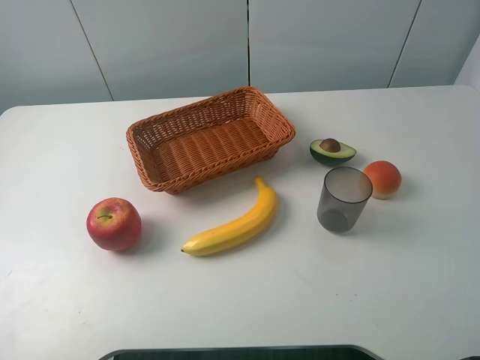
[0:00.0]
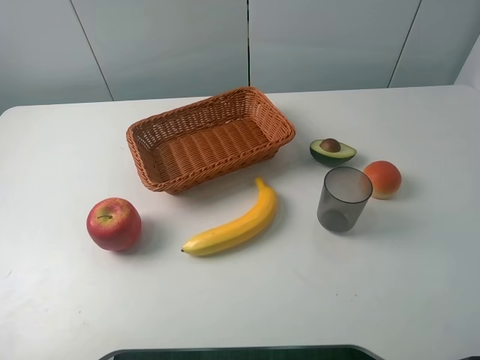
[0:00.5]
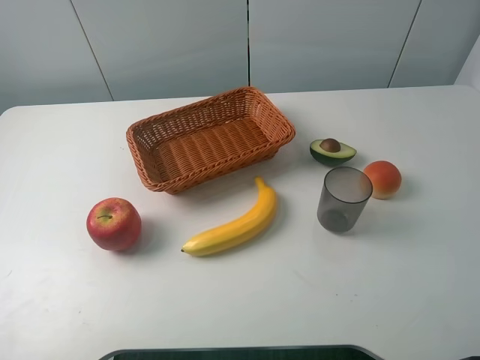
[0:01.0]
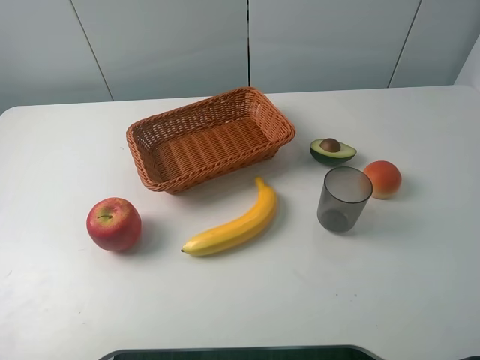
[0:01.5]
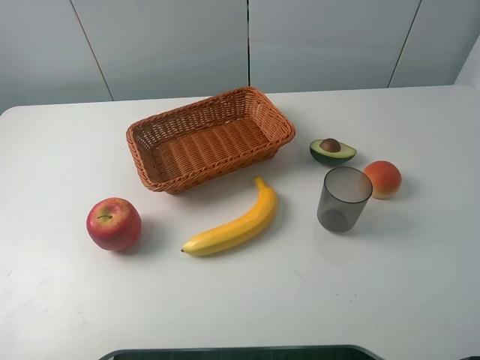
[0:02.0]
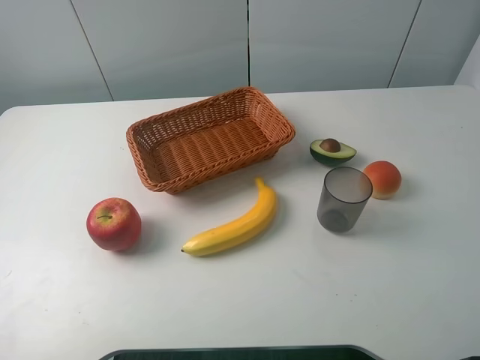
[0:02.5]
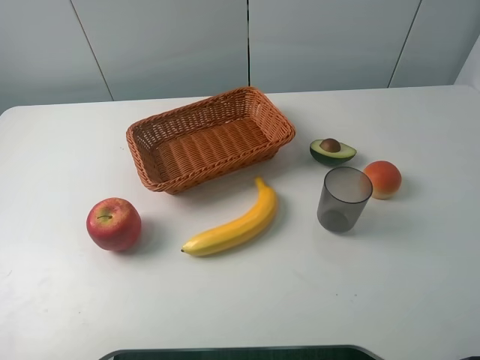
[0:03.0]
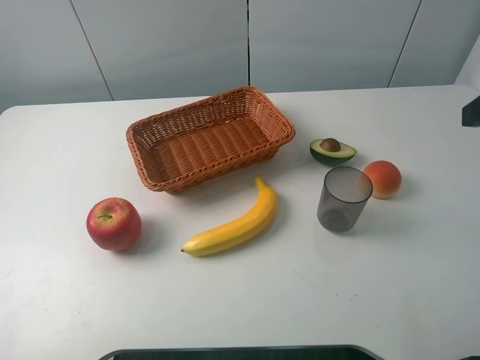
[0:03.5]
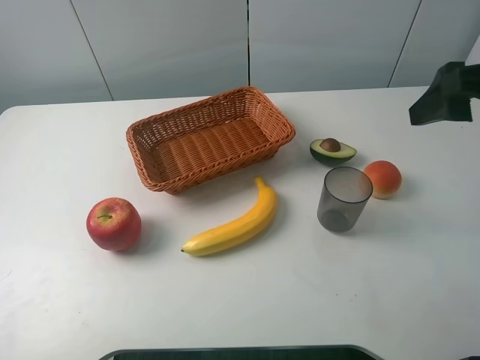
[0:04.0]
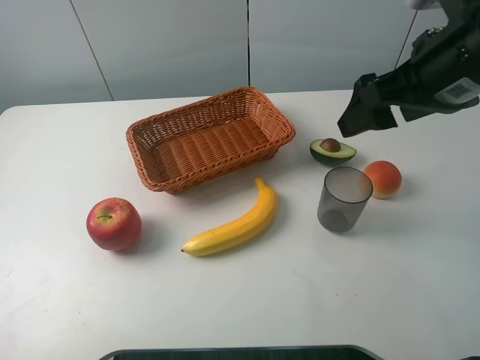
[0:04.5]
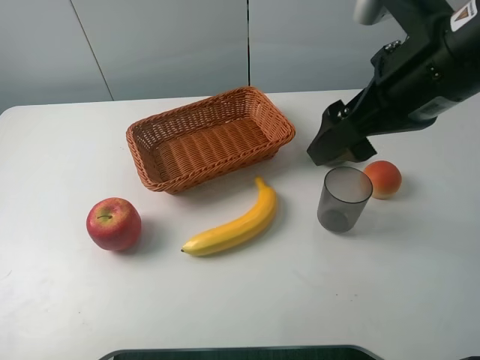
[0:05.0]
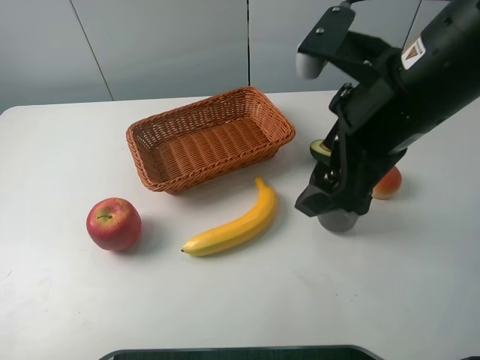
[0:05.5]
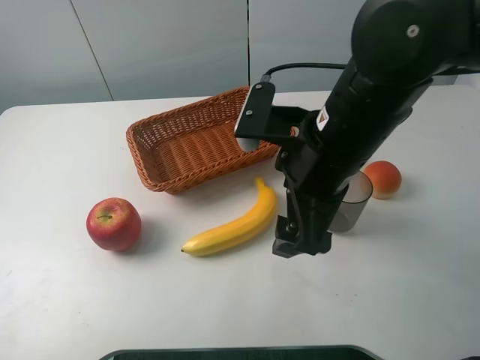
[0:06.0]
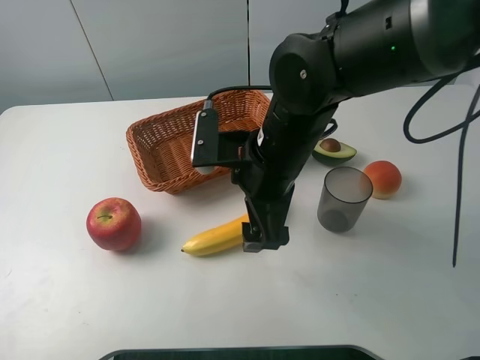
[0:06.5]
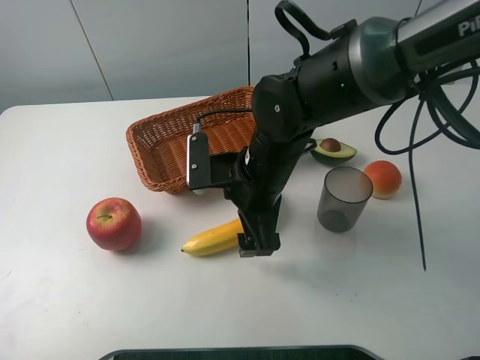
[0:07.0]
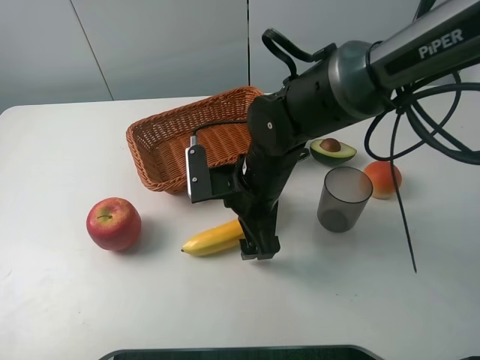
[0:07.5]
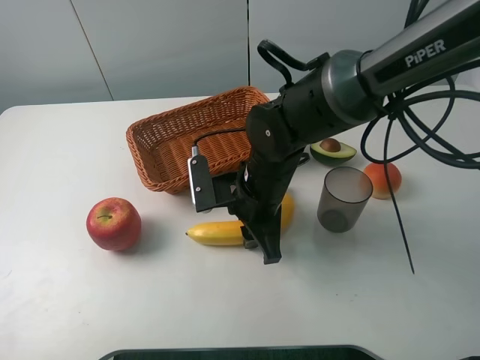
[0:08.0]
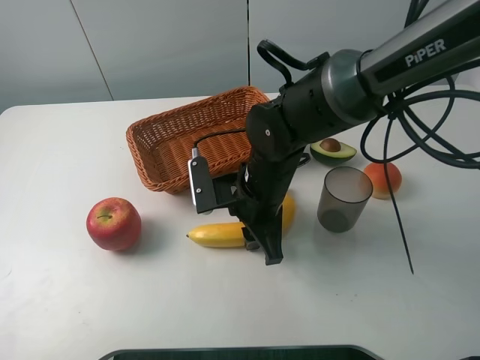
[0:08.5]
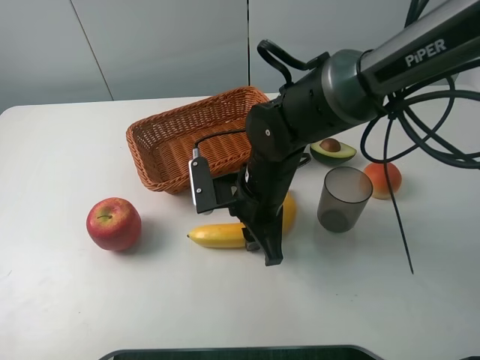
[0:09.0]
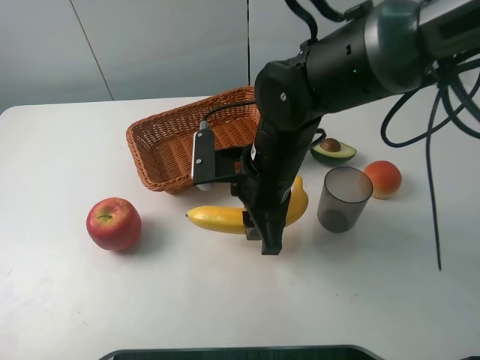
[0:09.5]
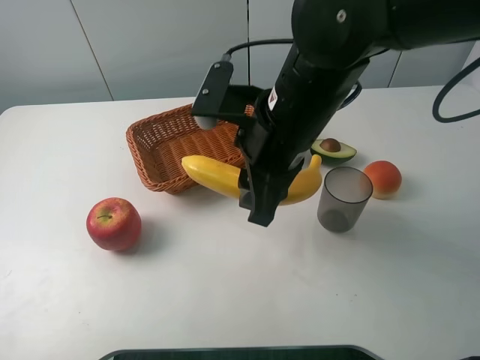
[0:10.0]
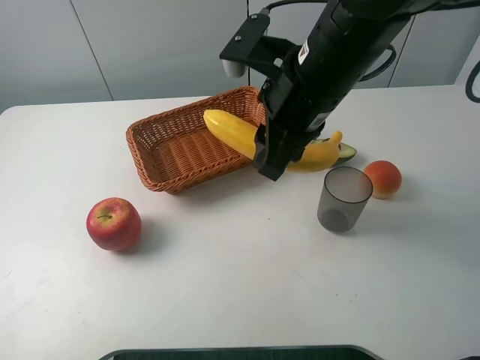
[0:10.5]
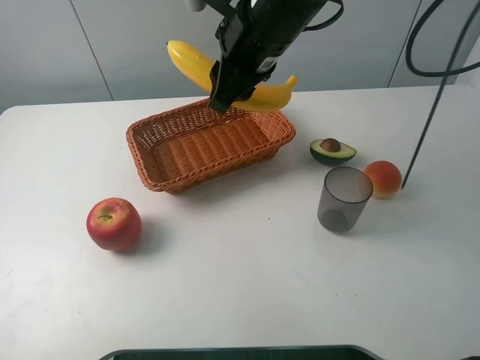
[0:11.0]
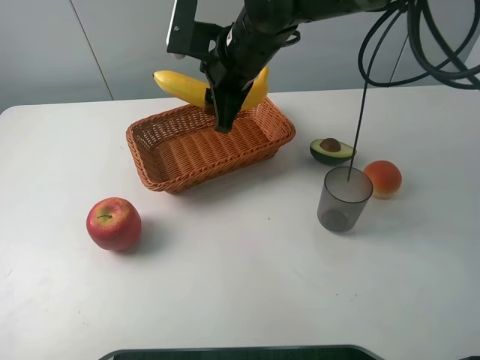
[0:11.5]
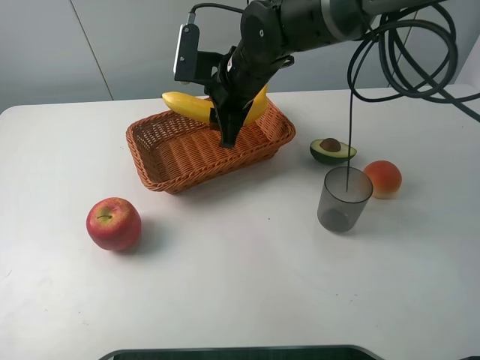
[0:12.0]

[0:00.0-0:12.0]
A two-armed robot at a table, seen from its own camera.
Task of the whole recording: randomly pick up an item from the table and put it in the basket.
Step, 0:00.0 to 0:08.0: Grasp the banana with the right gripper.
0:02.0 to 0:04.0: The right gripper travels forward by about 20 cm.
0:04.0 to 0:06.0: The right gripper travels to the left and downward by roughly 20 cm.
0:06.0 to 0:08.0: The right gripper goes approximately 10 cm downward and to the left, and closes.
0:08.0 to 0:10.0: The right gripper shifts approximately 15 cm upward.
0:10.0 to 0:12.0: The right gripper moves forward, some 15 cm.

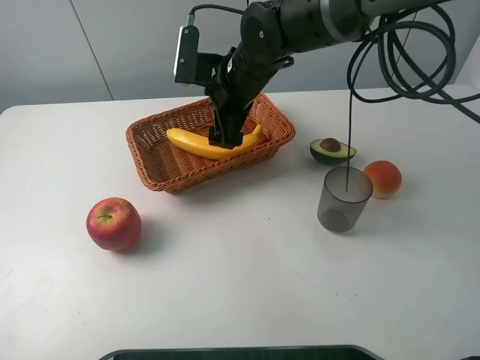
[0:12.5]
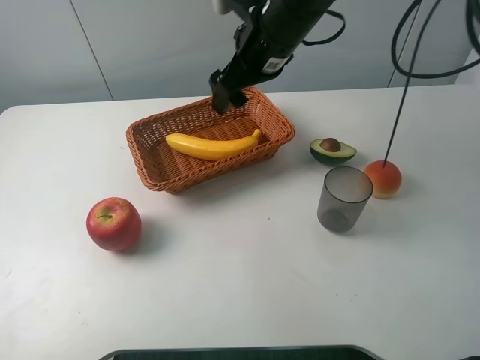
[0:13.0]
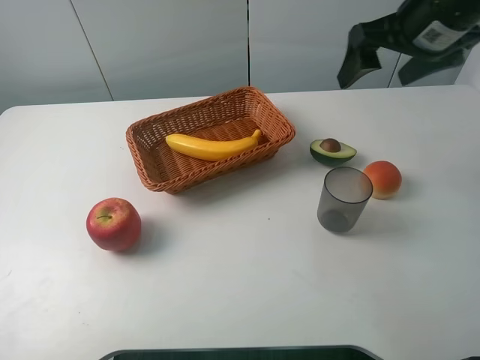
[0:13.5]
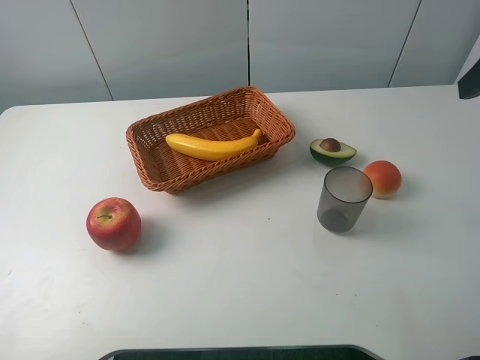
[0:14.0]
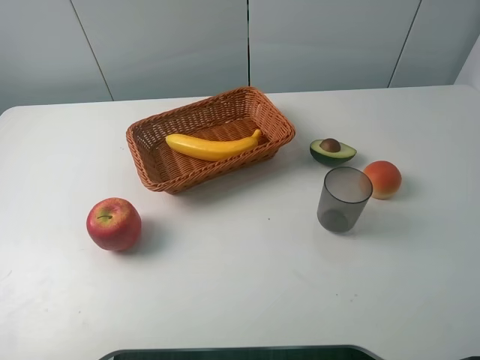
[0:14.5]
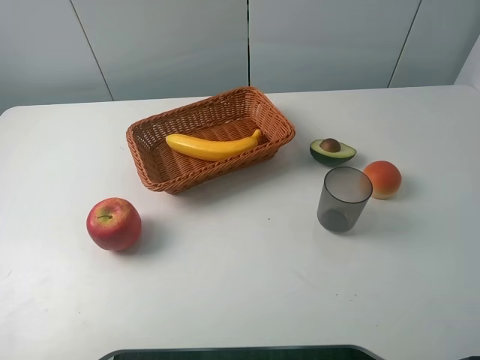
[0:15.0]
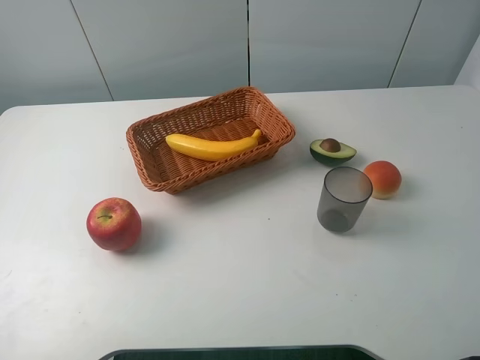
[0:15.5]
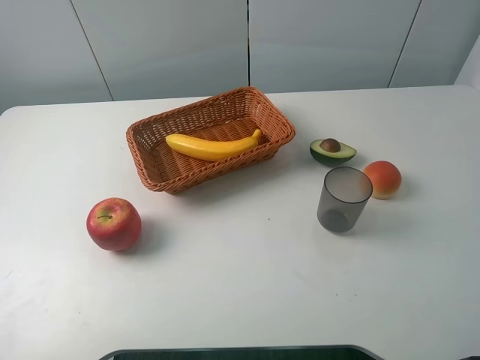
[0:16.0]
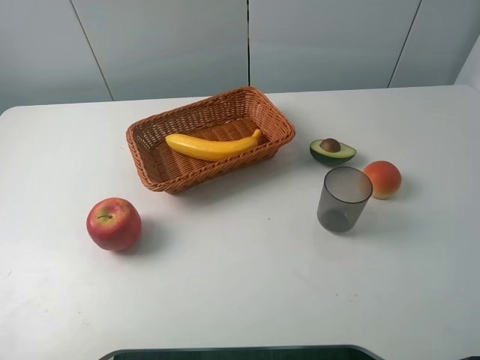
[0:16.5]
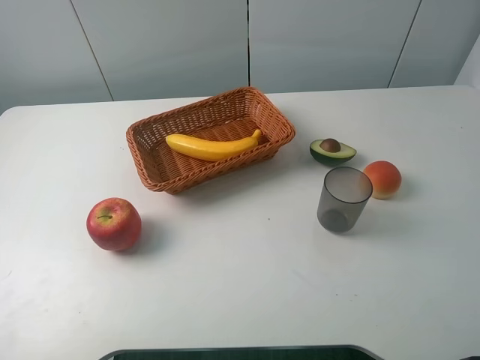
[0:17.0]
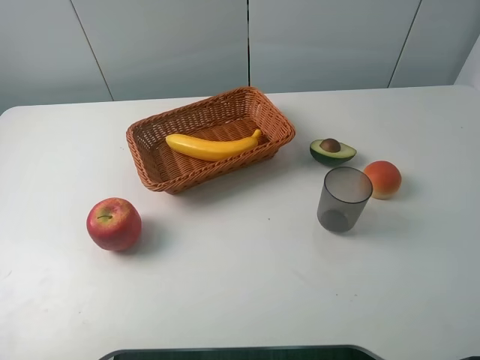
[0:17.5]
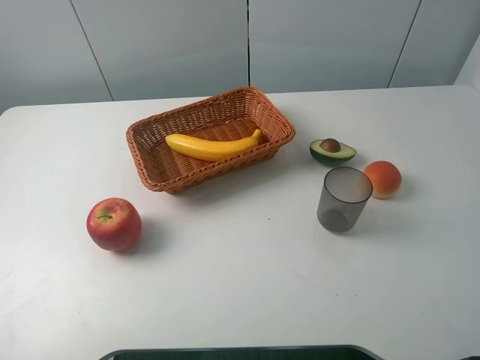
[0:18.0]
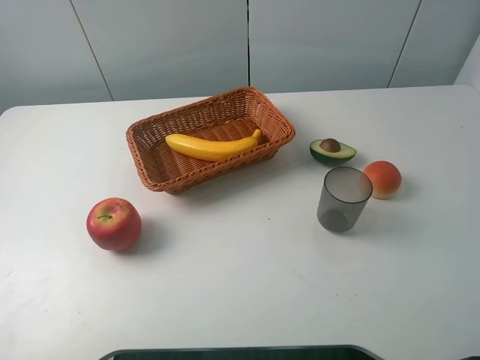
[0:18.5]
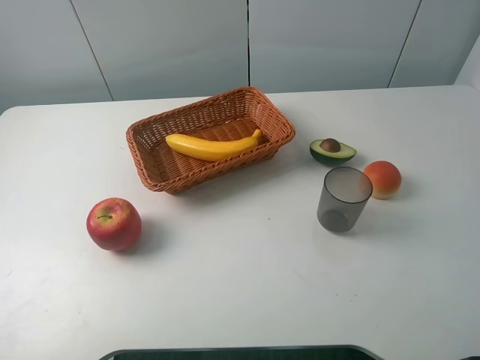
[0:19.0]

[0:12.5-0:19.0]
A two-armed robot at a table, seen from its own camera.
Task of the whole recording: randomly pick up an item from the table and put it in the basket.
0:12.5 to 0:14.5: The right gripper travels backward, to the right and upward by approximately 40 cm.
0:17.0 to 0:19.0: Both grippers stay put.

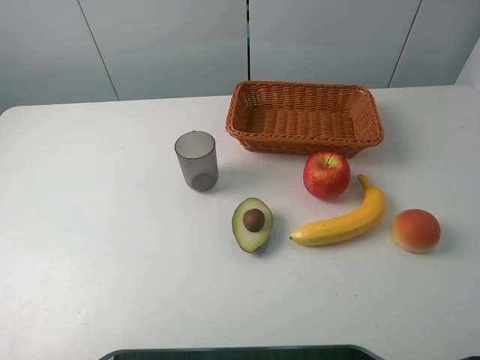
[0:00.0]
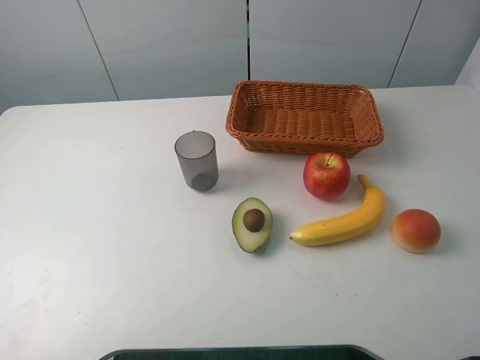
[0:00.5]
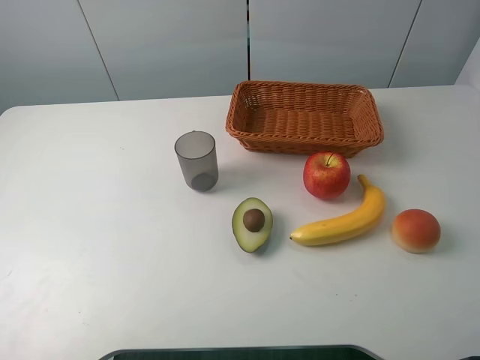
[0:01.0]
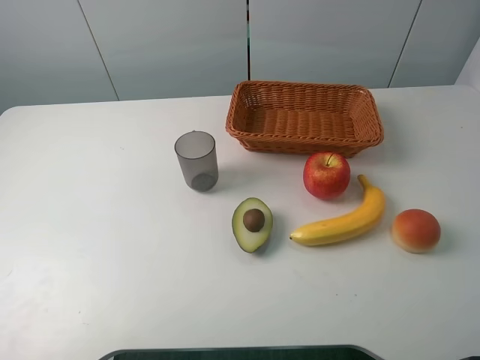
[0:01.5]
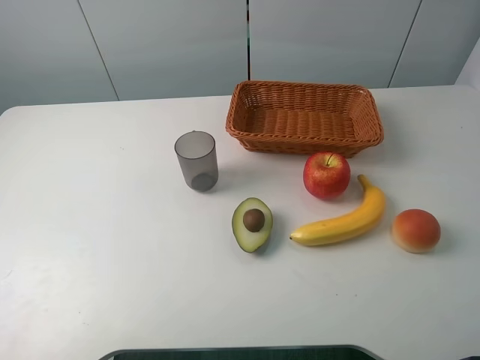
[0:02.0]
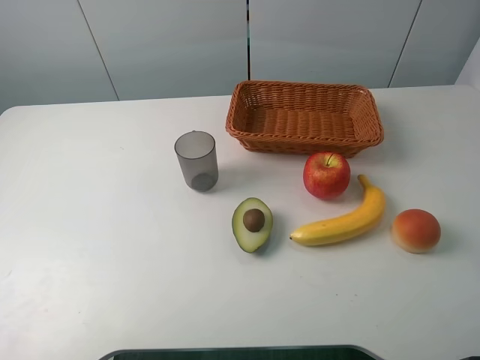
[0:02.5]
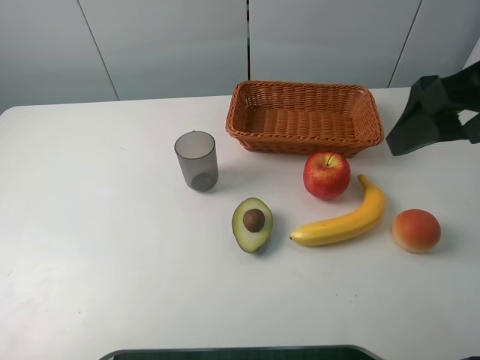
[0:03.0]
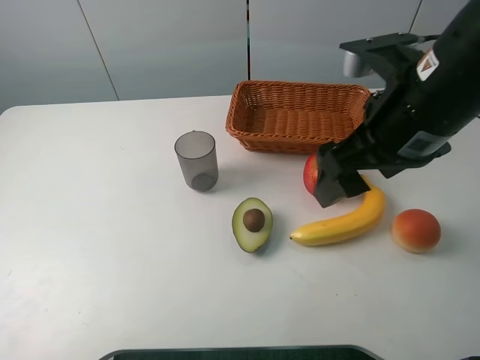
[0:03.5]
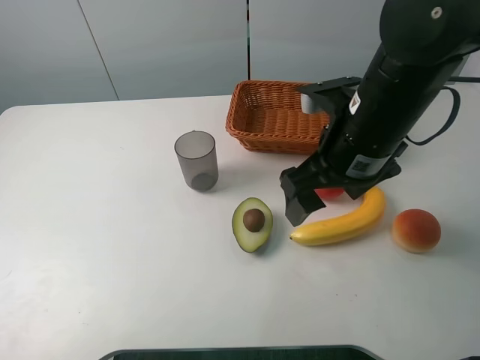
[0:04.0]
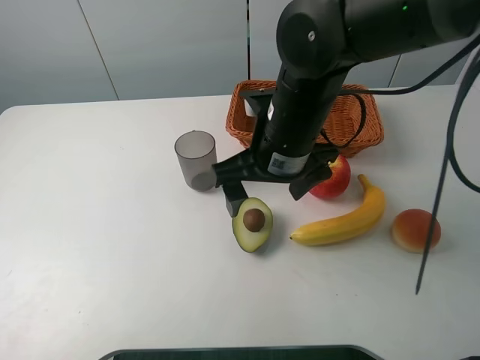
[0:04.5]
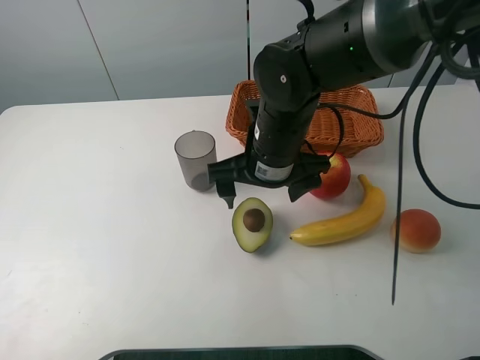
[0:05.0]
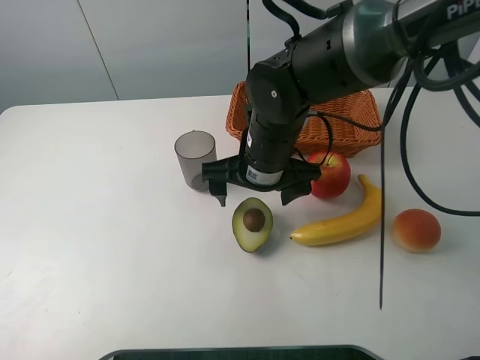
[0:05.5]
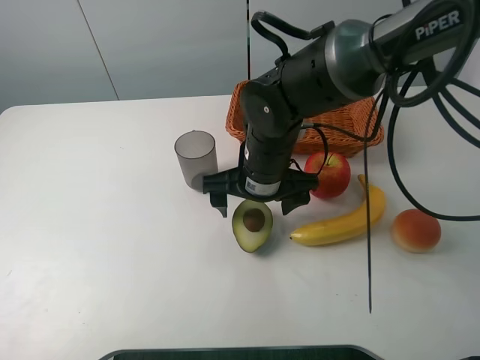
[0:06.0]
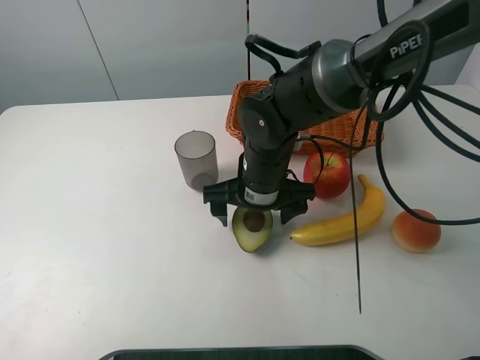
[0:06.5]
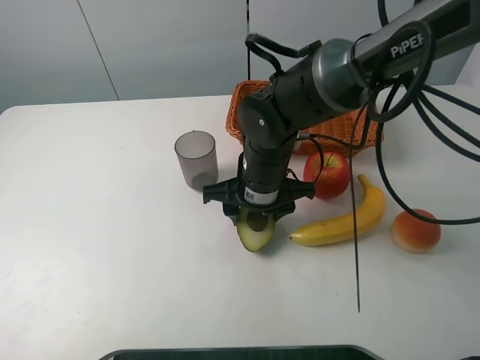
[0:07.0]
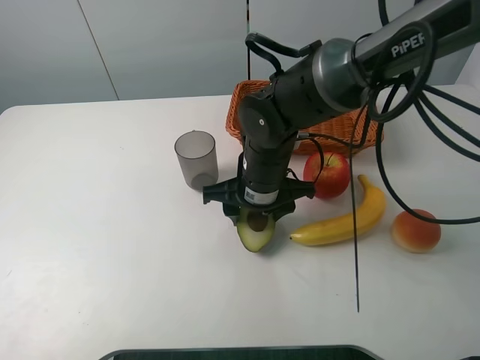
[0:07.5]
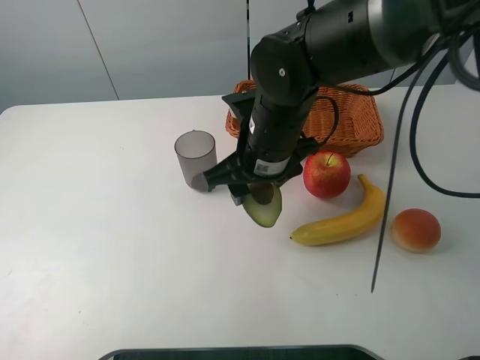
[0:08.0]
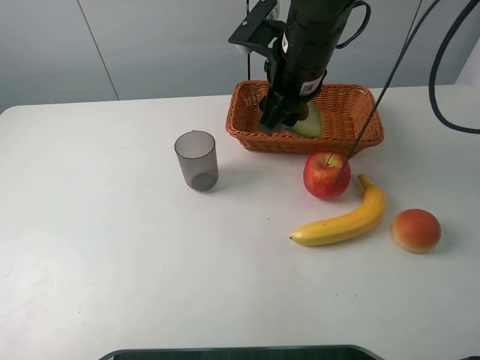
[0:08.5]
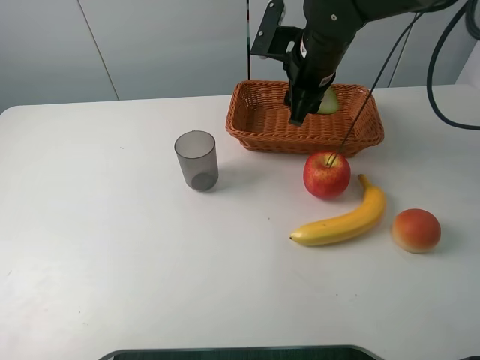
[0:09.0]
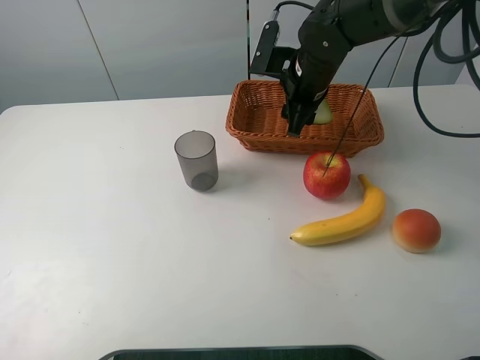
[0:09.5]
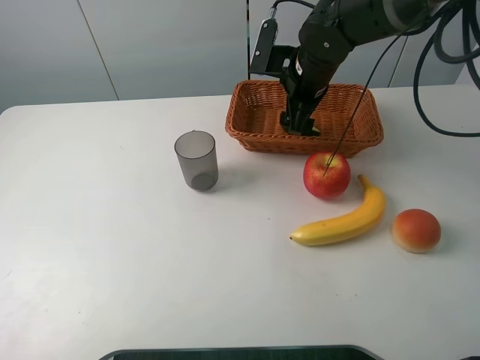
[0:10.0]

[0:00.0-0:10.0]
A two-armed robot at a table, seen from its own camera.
Task of the whole recording: randomly pick up an item from the table and put it in the basket.
Step, 0:00.0 to 0:06.5: Grasp the avocado with the right gripper.
0:02.0 to 0:04.0: The right gripper goes some 25 cm forward, to the left and downward.
0:04.0 to 0:06.0: The right gripper goes roughly 15 cm downward and to the left.
0:06.0 to 0:08.0: The right gripper shifts about 5 cm upward, and closes its fingers.
0:08.0 to 0:10.0: The right gripper shifts about 15 cm forward and to the right, and opens up.
